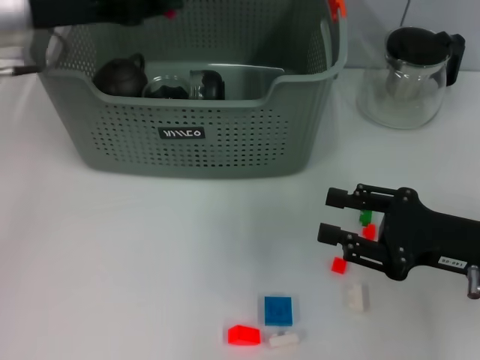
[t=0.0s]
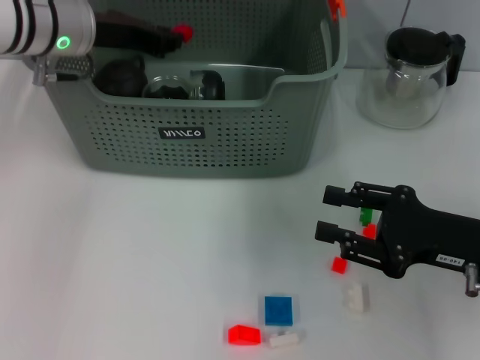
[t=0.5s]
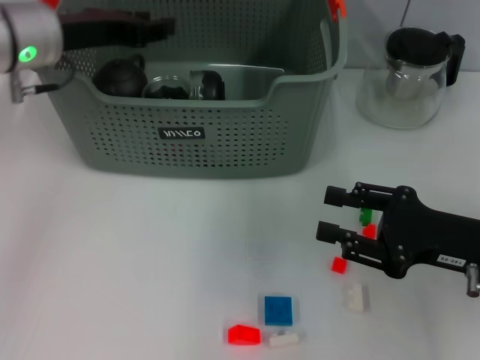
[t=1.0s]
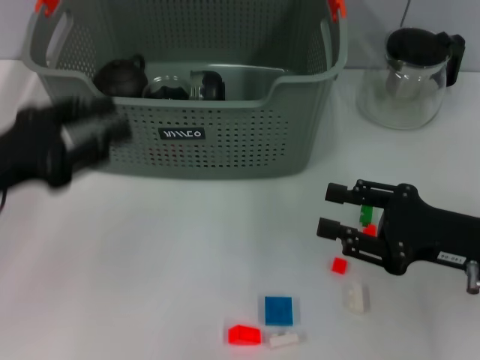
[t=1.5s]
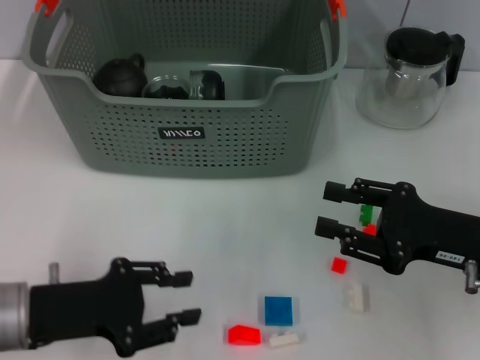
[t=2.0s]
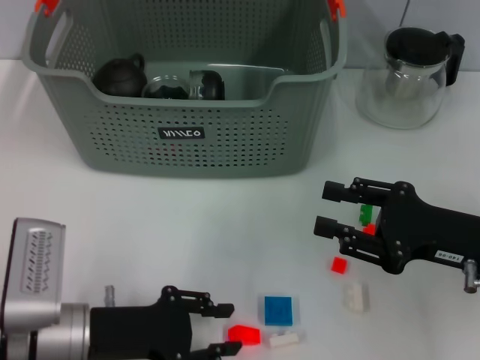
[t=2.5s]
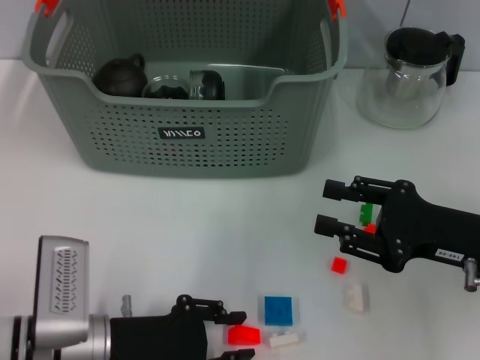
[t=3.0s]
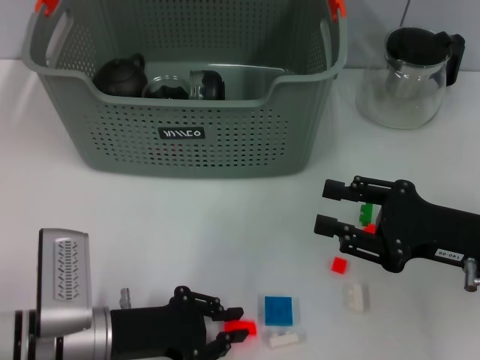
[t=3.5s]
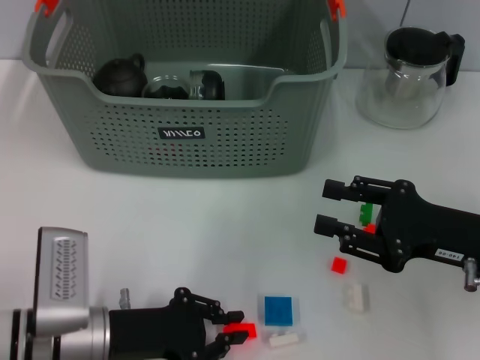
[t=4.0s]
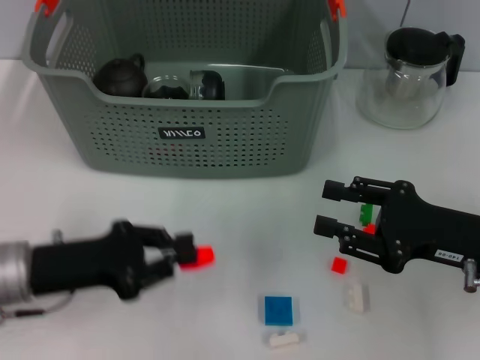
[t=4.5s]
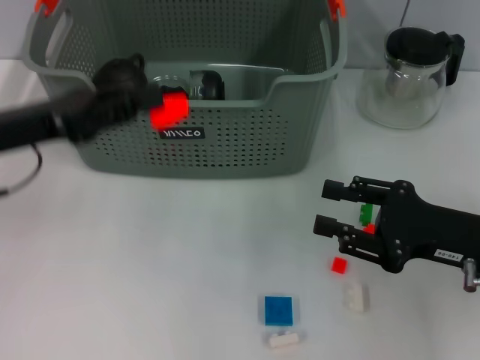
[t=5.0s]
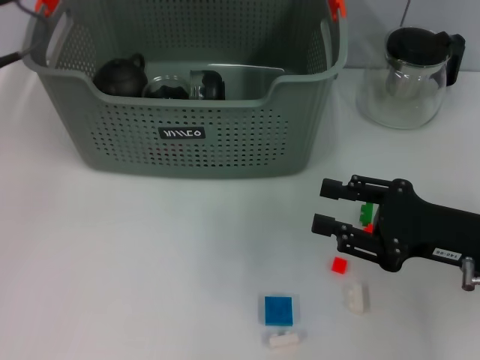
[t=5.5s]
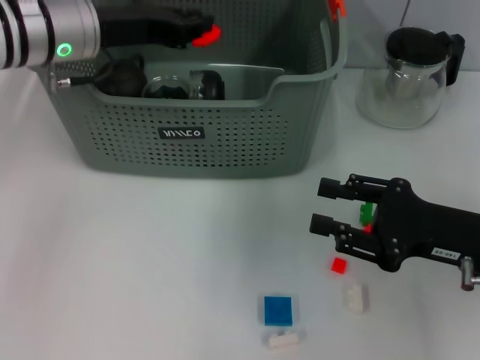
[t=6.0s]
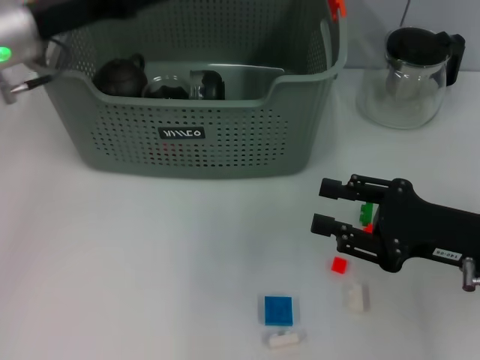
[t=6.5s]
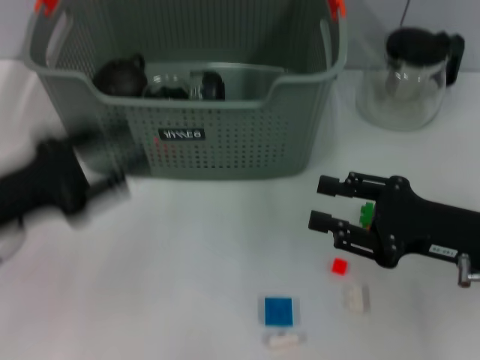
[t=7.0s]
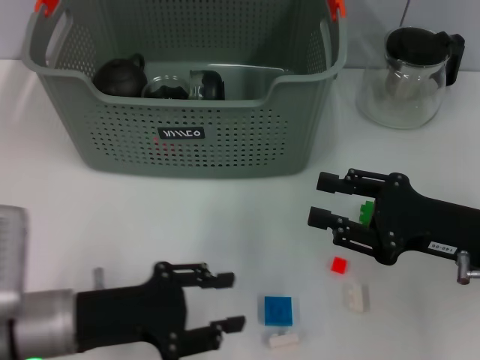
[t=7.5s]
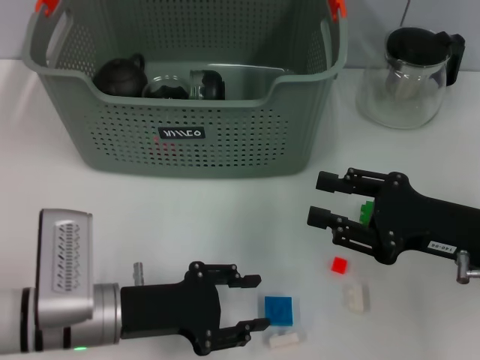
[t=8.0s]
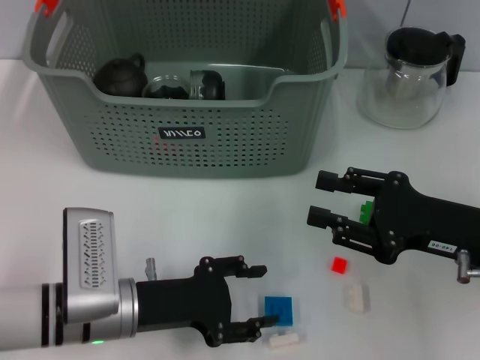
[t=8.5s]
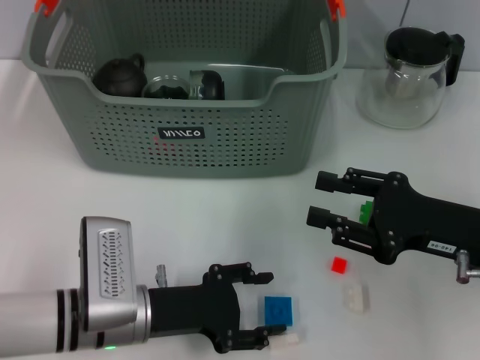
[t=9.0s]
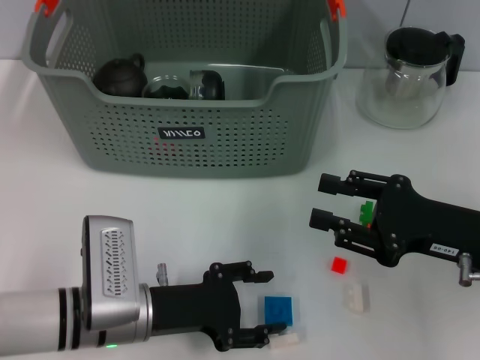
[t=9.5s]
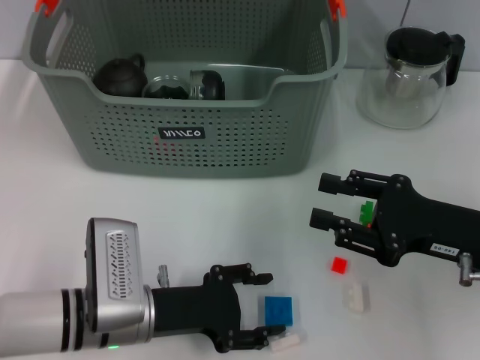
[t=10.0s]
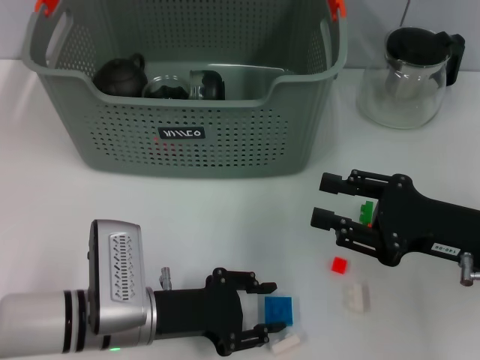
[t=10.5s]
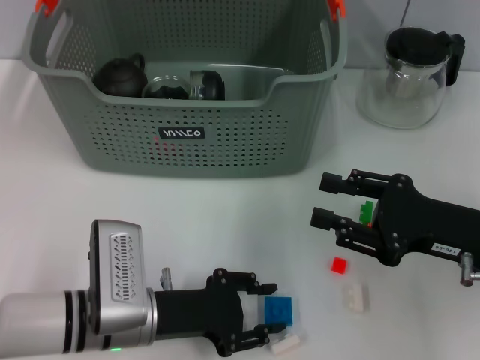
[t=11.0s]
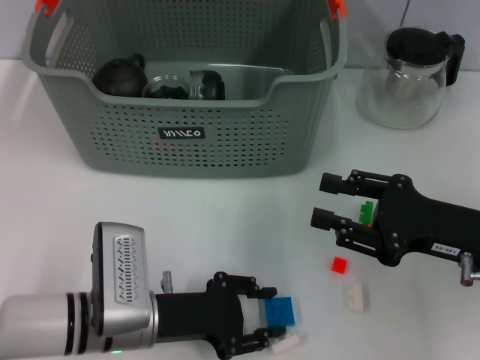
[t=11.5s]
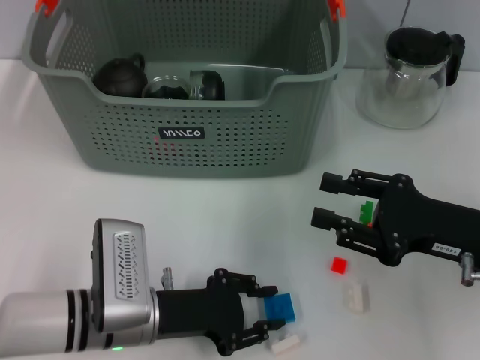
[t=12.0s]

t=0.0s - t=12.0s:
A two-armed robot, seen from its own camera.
Task of the whole recording: pick up the teacup on the table and place it into the storage bin, pick up the block on the table and place it into the storage bin.
Step, t=1.5s - t=3.5s: Grasp the orange block with left gripper.
Step, t=4.0s - t=6.0s: Place the orange block in the storage box with left gripper.
Step, t=6.5s - t=11.5s: Grasp the dark blue block with left gripper.
t=0.0s - t=2.0s: The left gripper travels backward and downward by about 25 cm.
t=2.0s - t=4.0s: The left gripper heads to the right and downward, covering about 10 cm.
t=4.0s - t=6.0s: The left gripper is displaced forward and upward by approximately 25 cm.
t=6.0s - t=8.0s: The left gripper shifts some 25 cm backward and downward, and opens its fingers.
t=8.0s - t=10.0s: The grippers make only small movements.
t=10.0s - t=12.0s: Neither gripper changes place.

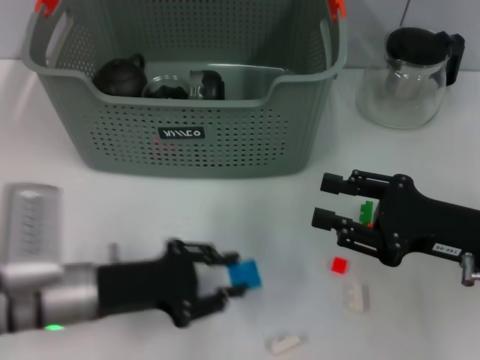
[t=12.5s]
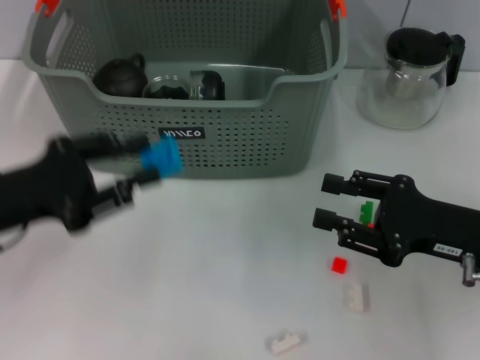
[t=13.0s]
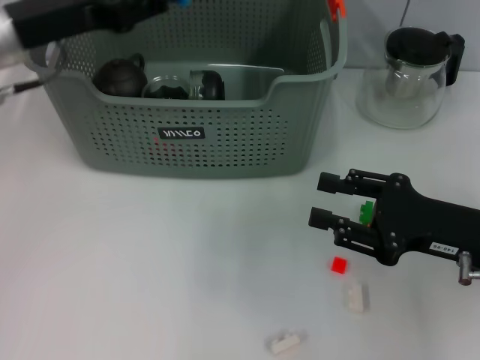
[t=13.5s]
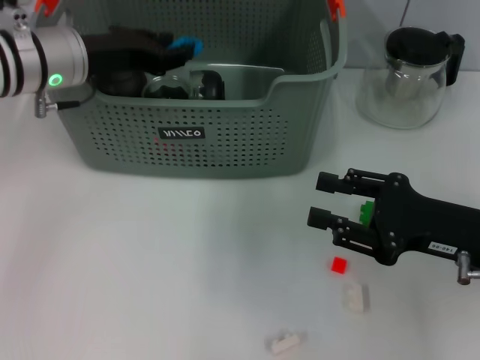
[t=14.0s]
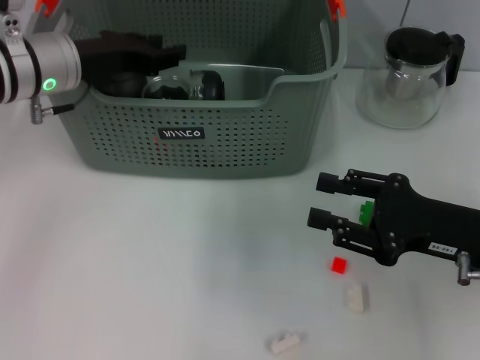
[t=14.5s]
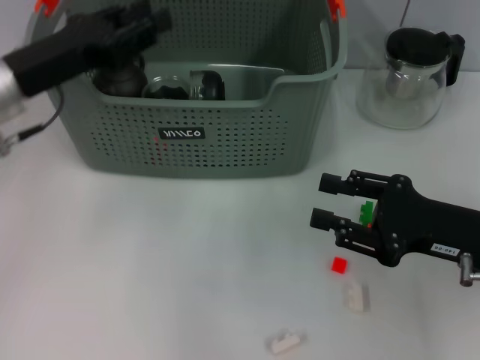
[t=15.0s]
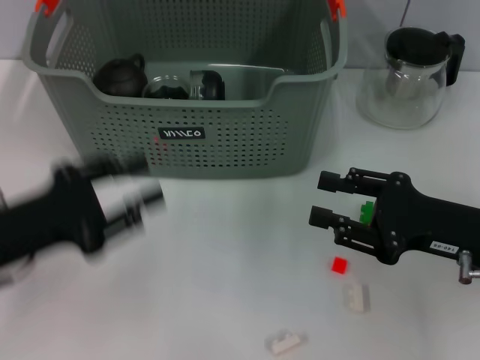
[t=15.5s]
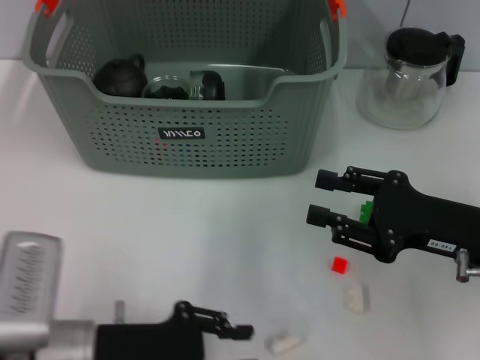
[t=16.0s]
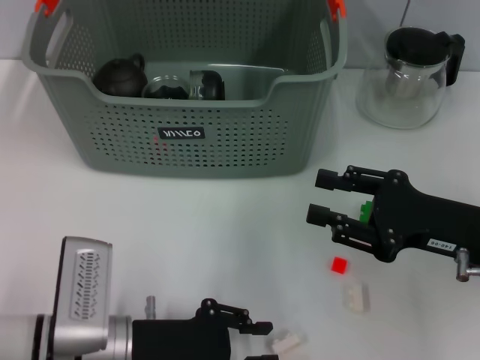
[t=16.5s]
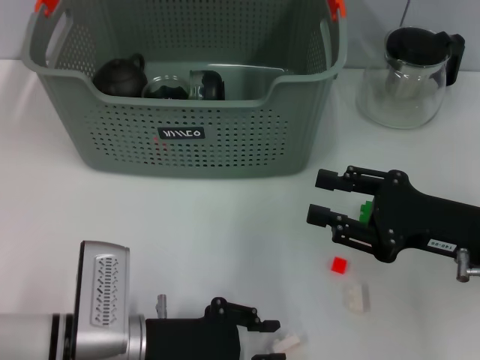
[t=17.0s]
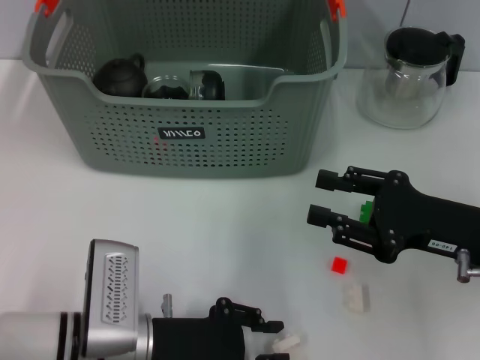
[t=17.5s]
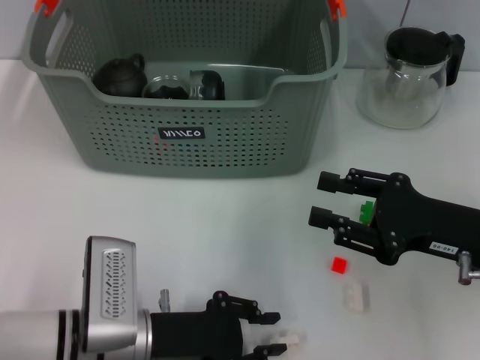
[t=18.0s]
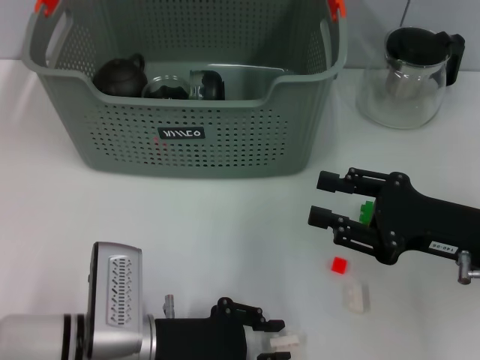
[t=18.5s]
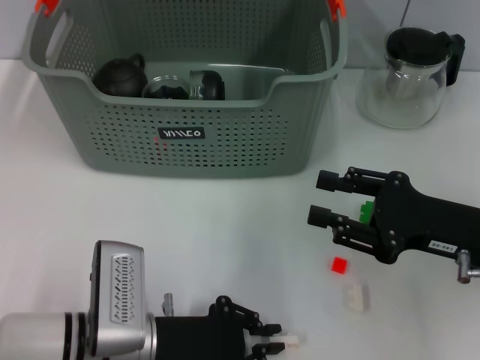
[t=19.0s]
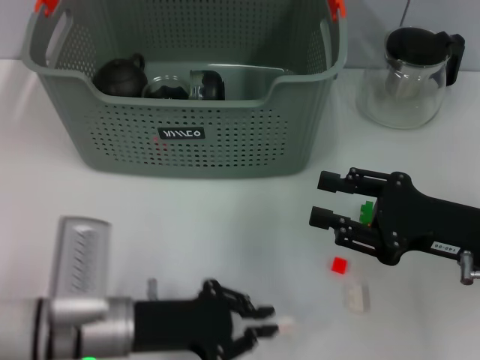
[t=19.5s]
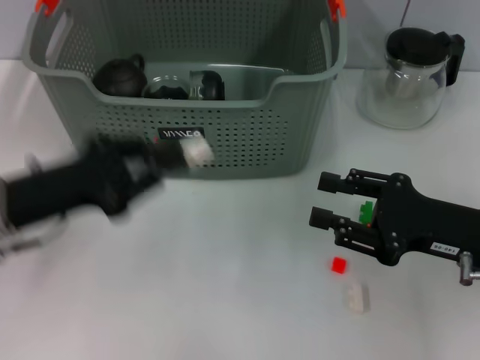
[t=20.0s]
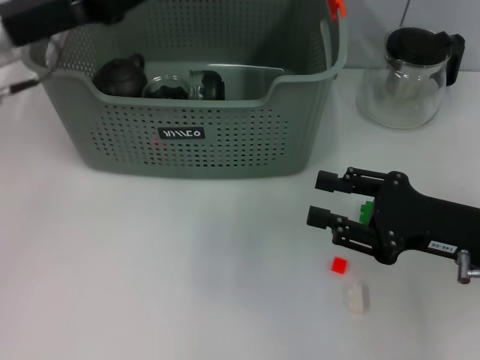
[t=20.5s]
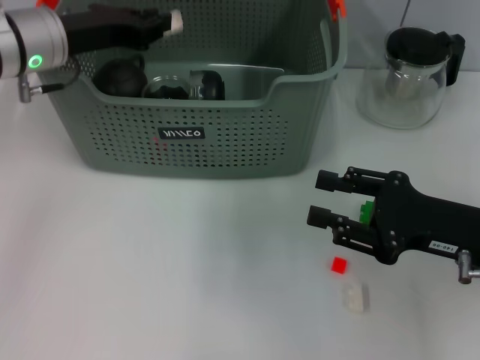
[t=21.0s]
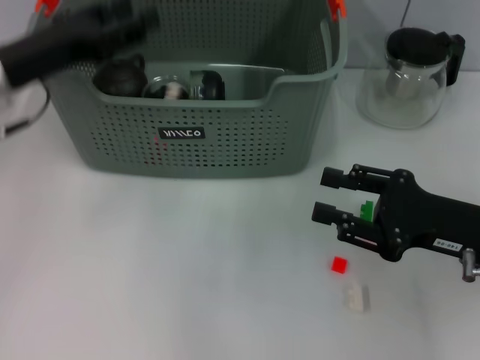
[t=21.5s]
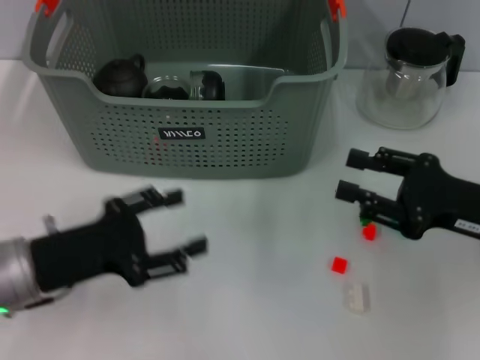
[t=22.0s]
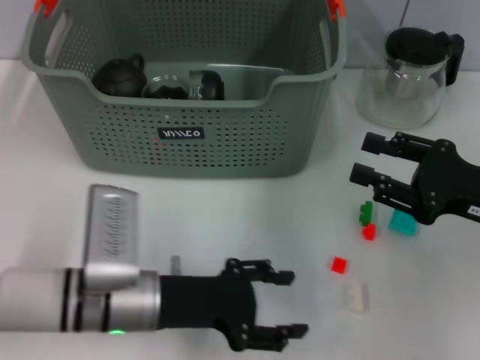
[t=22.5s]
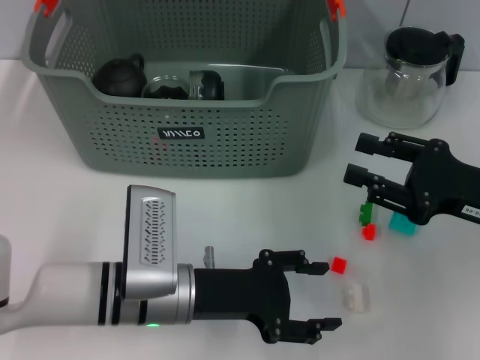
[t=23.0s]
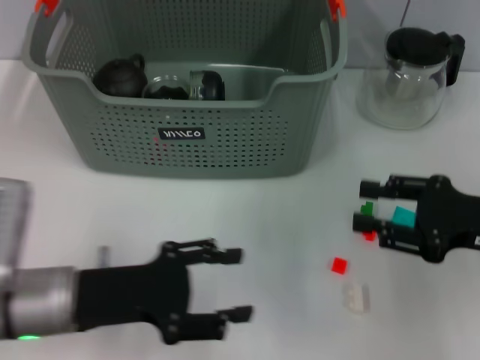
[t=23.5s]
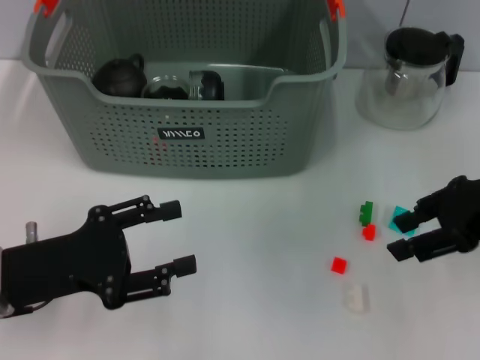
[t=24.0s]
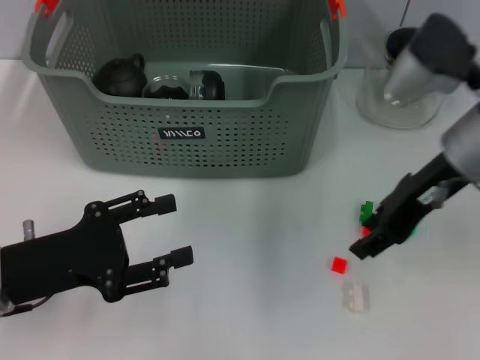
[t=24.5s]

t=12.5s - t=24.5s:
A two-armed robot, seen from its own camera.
Task of the whole recording: pick up the teacup on the table and place it into the storage bin, pick up the block on the table and place it into the storage bin.
Step, t=12.5s - t=14.5s: Place the dark blue block in the storage box with left gripper.
Step, t=15.0s - t=19.0s: Grasp the white block with left gripper.
Step, t=19.5s - t=21.0s: Place the white block in the storage box with left gripper.
t=12.5s - t=14.5s: The left gripper moves forward and upward, about 20 cm.
t=14.5s - t=16.5s: The left gripper travels backward and downward by some 25 cm.
t=16.5s - t=18.5s: The grippers stay close to where they were, moving slightly.
t=18.5s - t=20.5s: The left gripper travels upward, forward and to the left by about 25 cm.
t=20.5s - t=22.5s: The left gripper heads downward, backward and to the right, covering about 25 cm, and opens.
t=22.5s - t=24.5s: The right gripper shifts some 15 cm to the left, upward and forward, while the left gripper heads to the left and upward, covering approximately 10 cm.

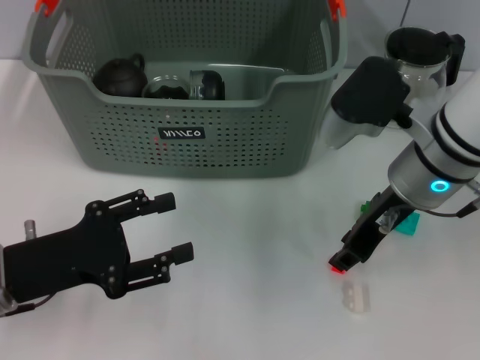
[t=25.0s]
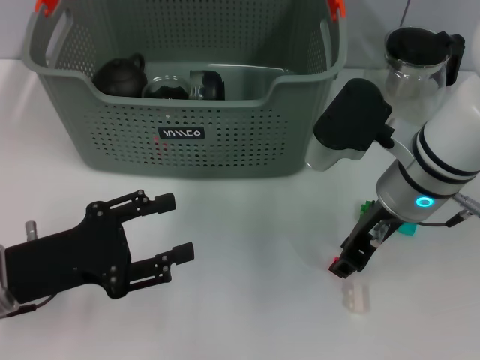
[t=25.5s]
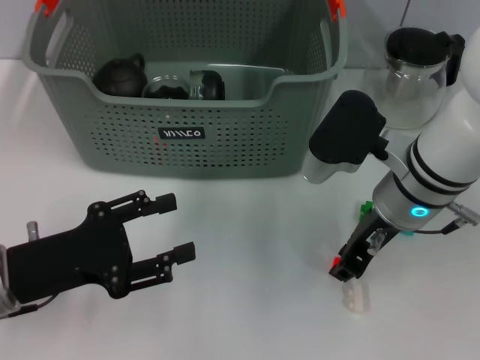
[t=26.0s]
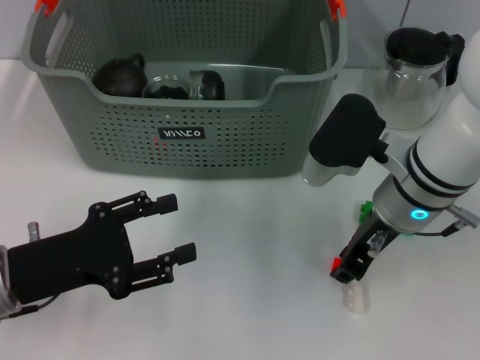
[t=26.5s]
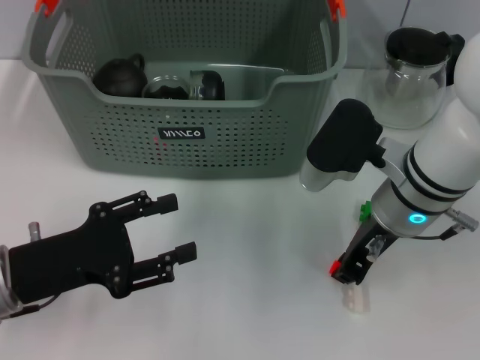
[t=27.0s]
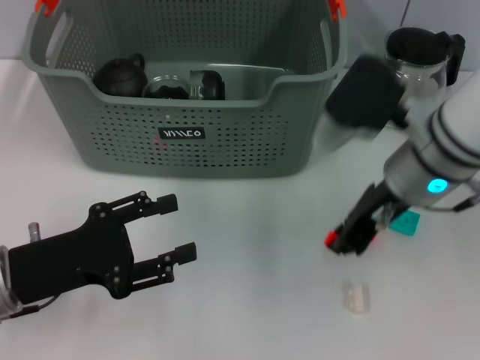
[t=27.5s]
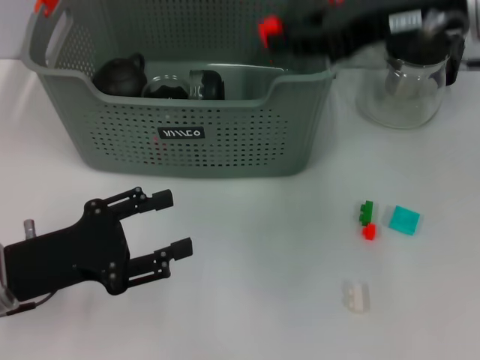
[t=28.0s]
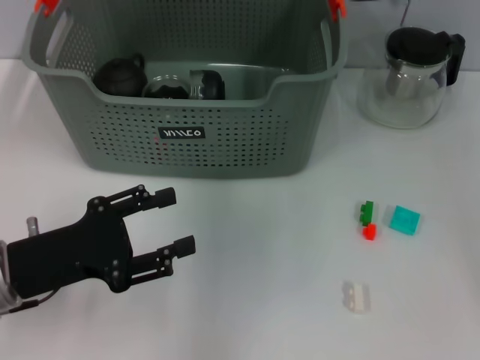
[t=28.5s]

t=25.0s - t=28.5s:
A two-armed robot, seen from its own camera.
Task of the whole recording: pick up the teacup on the table and place it into the storage bin, pick up the block on the table and place it into the storage bin.
Step, t=25.0s - t=27.0s: Grasp the orange block with right gripper.
t=25.0s - t=27.0s: The grippers stay close to where they were, moving slightly.
t=27.0s - t=28.5s: The right gripper moves upward and forward, about 20 cm.
